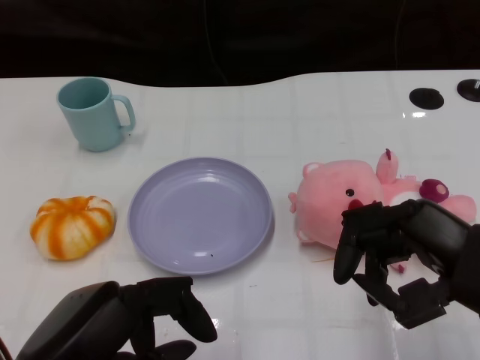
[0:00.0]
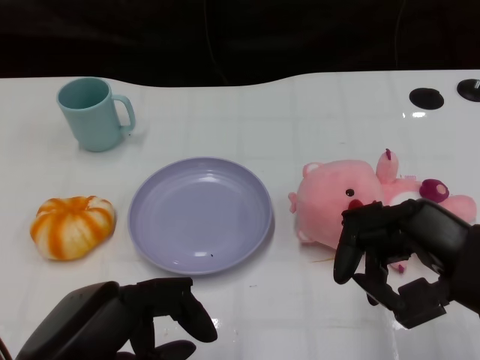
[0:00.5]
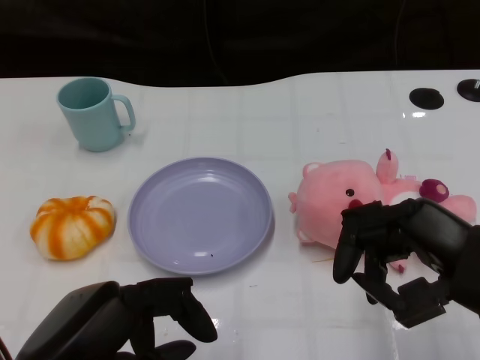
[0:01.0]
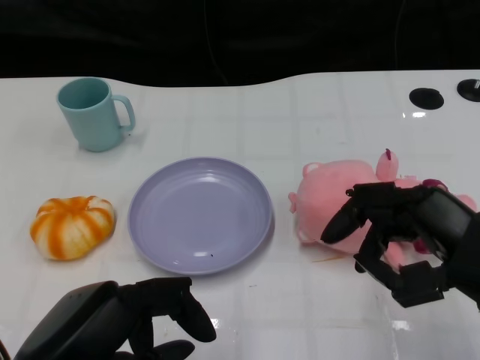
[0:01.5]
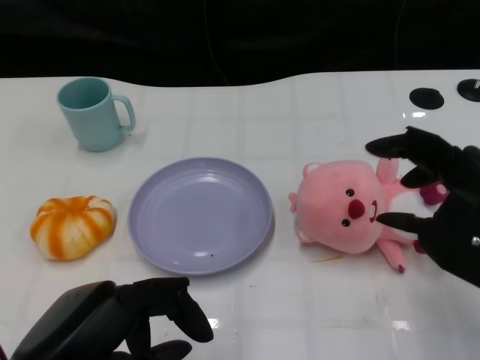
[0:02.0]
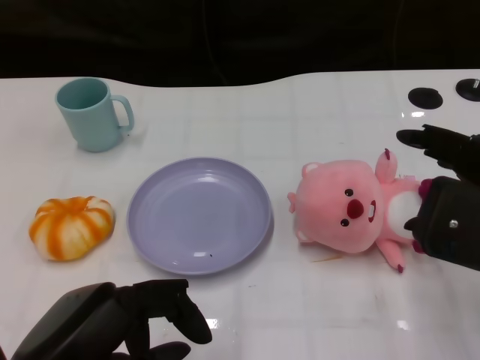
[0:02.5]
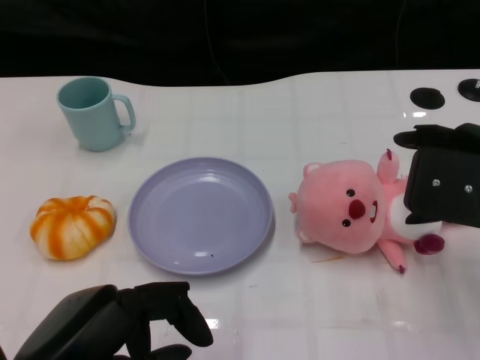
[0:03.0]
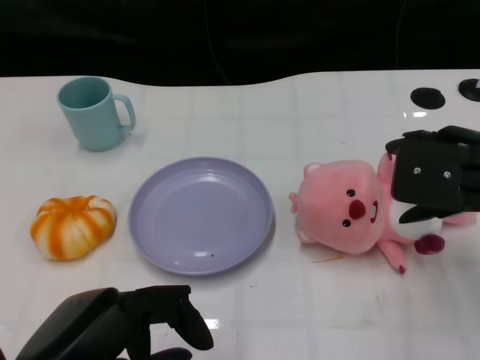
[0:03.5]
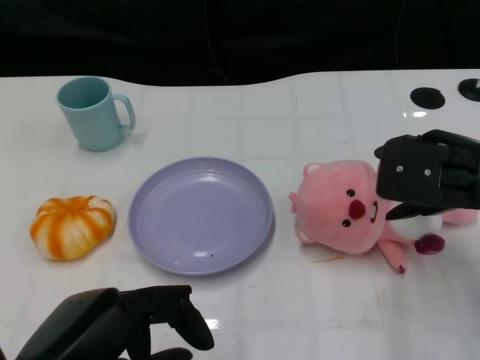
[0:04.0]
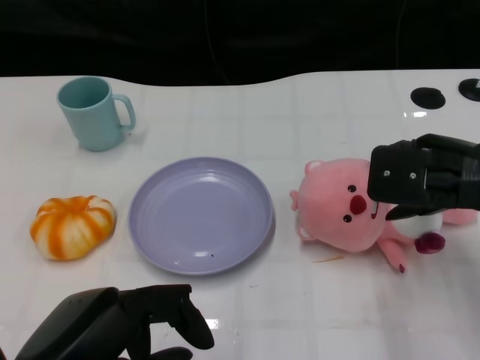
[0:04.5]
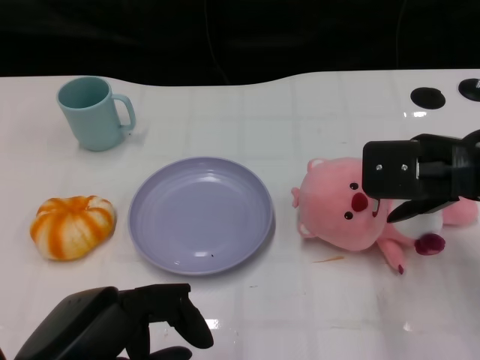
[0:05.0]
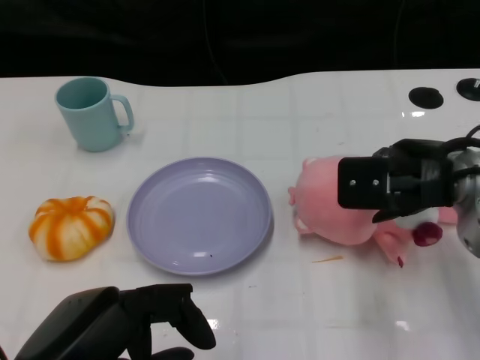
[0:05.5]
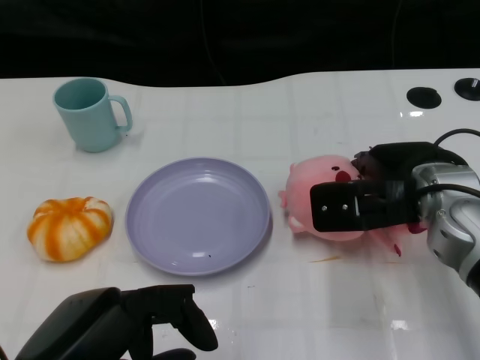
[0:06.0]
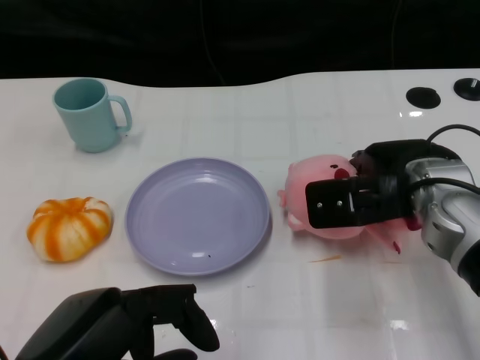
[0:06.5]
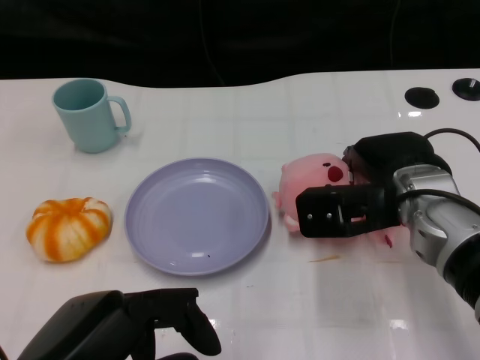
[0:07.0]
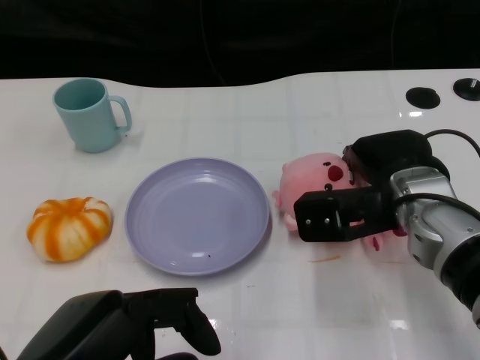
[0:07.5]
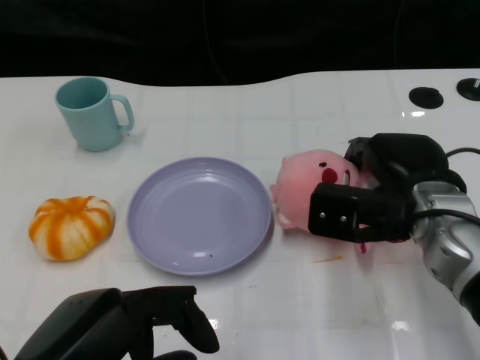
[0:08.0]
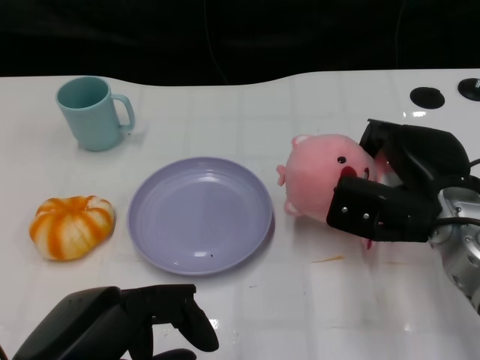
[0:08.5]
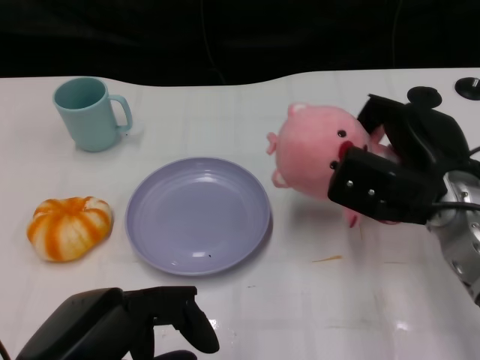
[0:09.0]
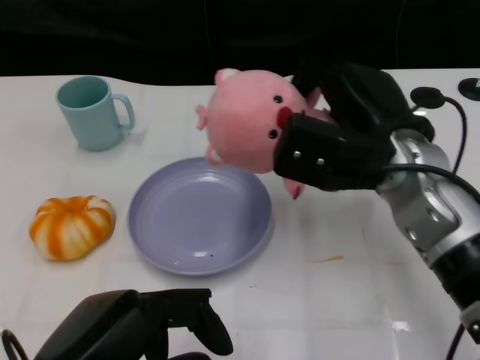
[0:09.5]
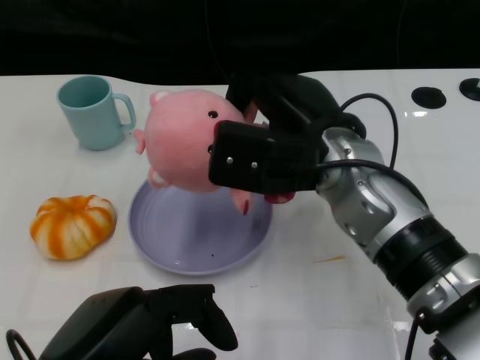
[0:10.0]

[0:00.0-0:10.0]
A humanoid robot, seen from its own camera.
Task of the whole recording: Pick up the doll on the other side of the plate and place it into the plate.
Step, 0:01.5 to 0:09.0: Grasp the pink doll with the right gripper.
0:02.0 to 0:04.0: The right hand heads forward, covering some 10 cm.
0:04.0 to 0:06.0: The right hand goes roughly 10 cm to the left and downward.
0:08.0 to 0:10.0: The right hand moves to the left and upward, roughly 10 cm.

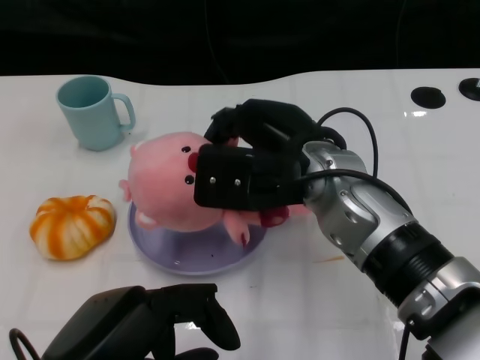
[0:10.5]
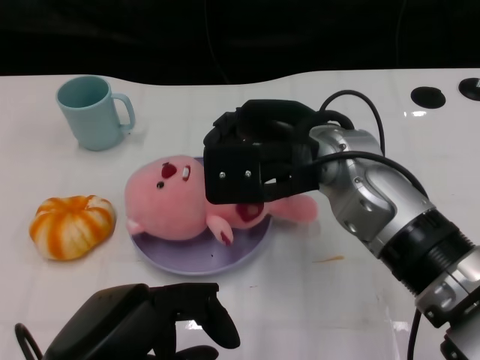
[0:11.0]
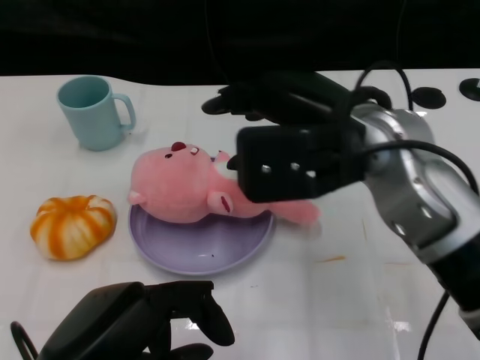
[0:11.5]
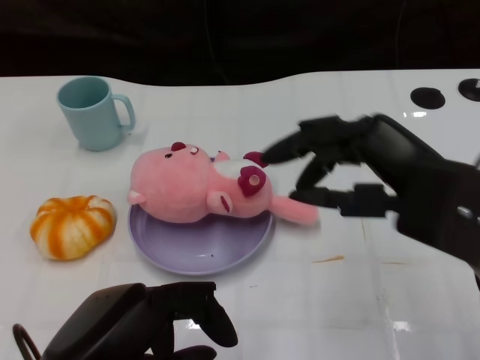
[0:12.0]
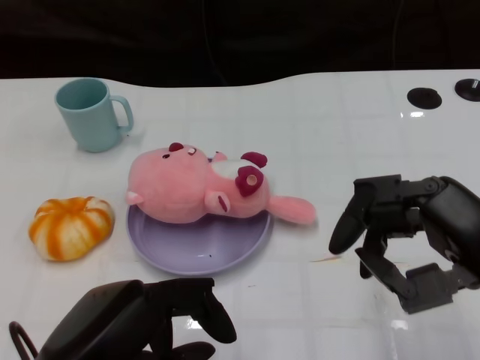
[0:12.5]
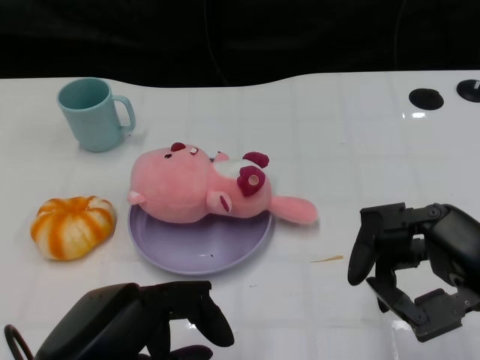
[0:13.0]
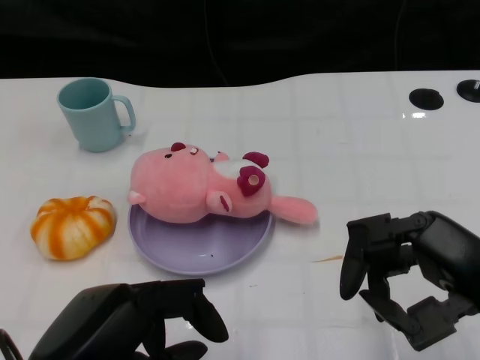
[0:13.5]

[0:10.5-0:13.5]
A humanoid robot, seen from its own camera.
Task of the whole recording: Pick up the doll on the other side of the plate and place it into the plate.
0:10.5 to 0:12.0: The right hand is displaced to the right and backward by some 15 cm.
0:12.0 to 0:13.5: The right hand shifts roughly 5 cm backward.

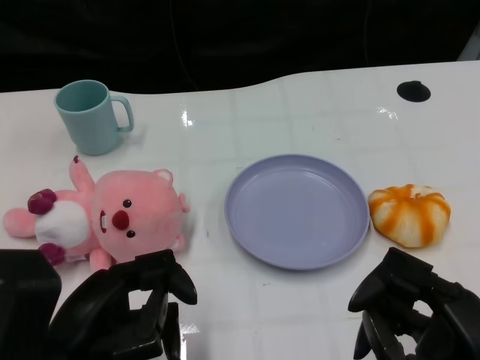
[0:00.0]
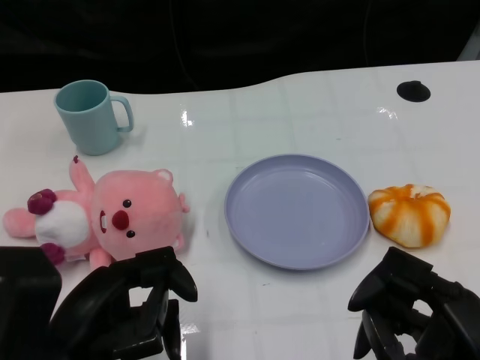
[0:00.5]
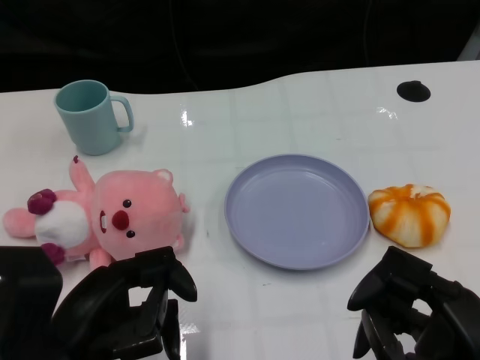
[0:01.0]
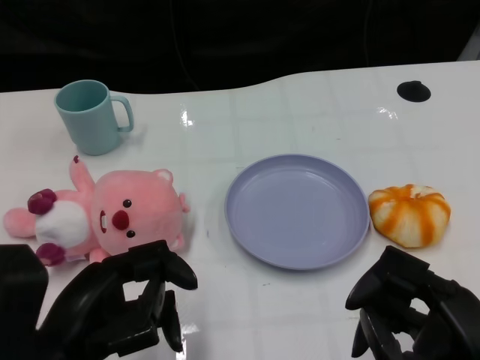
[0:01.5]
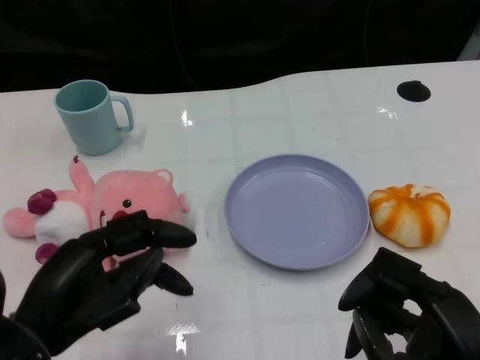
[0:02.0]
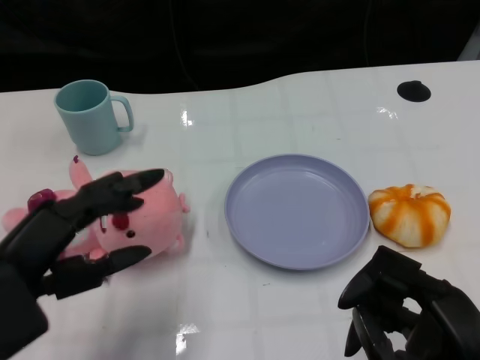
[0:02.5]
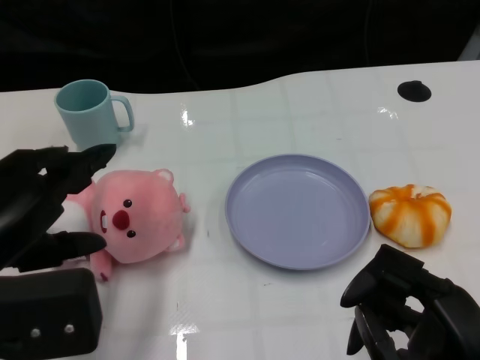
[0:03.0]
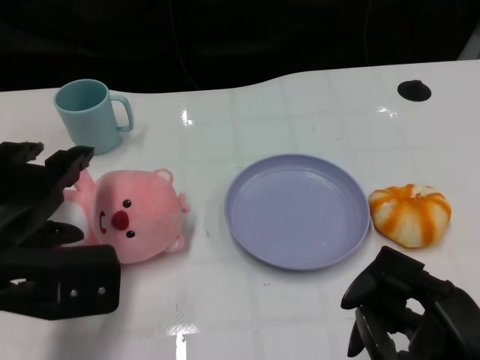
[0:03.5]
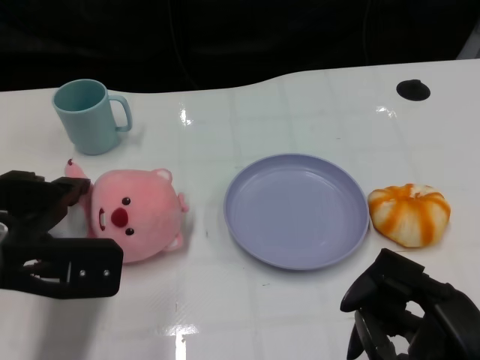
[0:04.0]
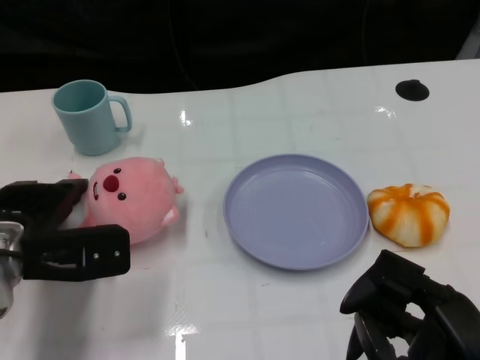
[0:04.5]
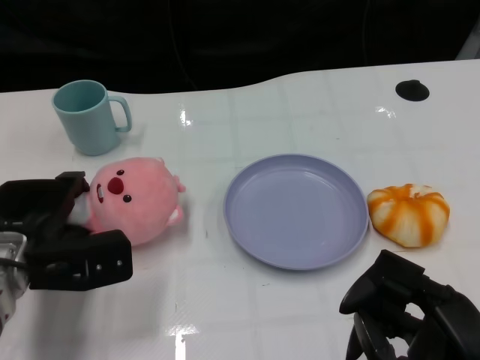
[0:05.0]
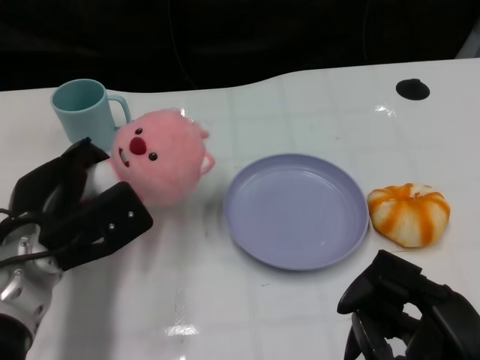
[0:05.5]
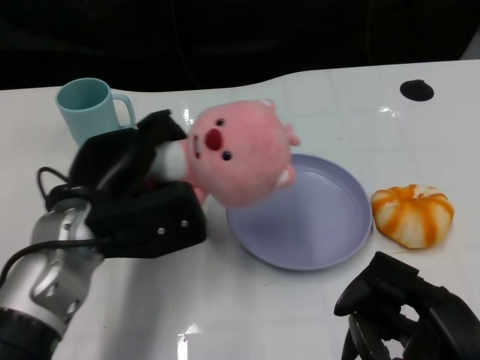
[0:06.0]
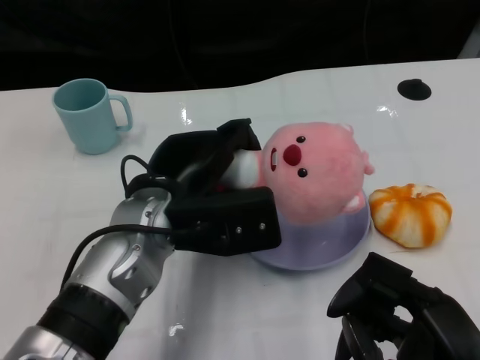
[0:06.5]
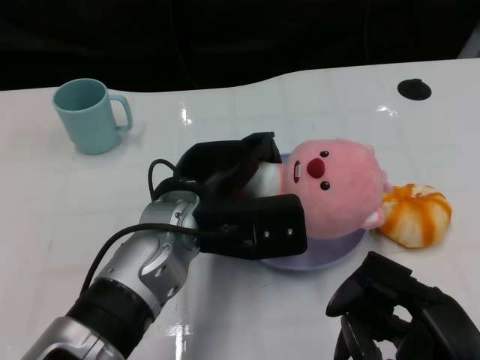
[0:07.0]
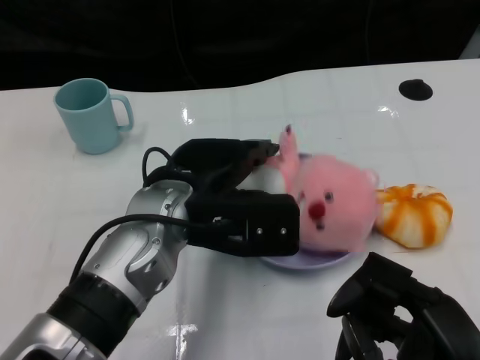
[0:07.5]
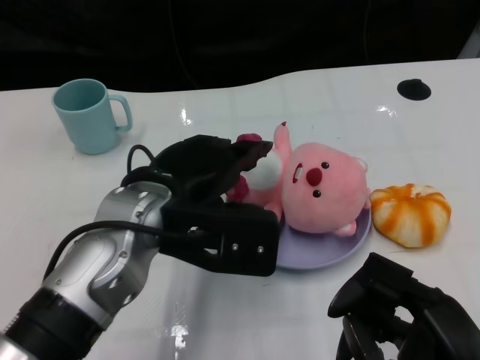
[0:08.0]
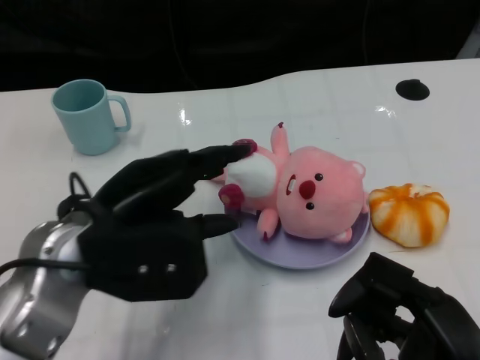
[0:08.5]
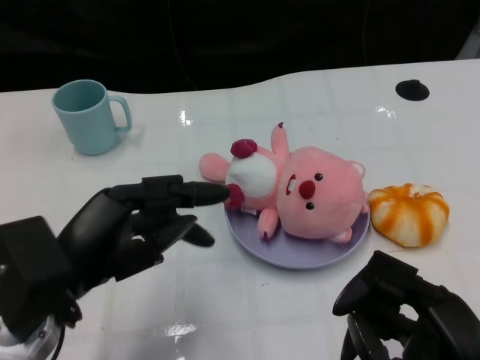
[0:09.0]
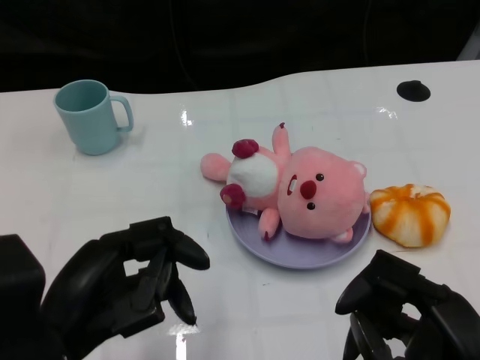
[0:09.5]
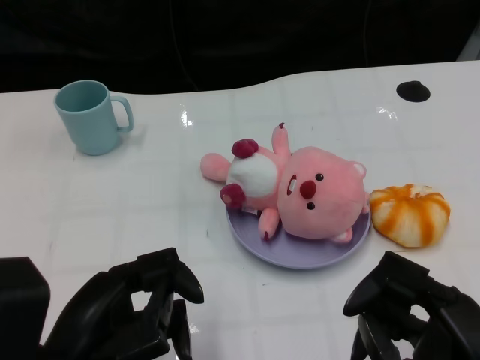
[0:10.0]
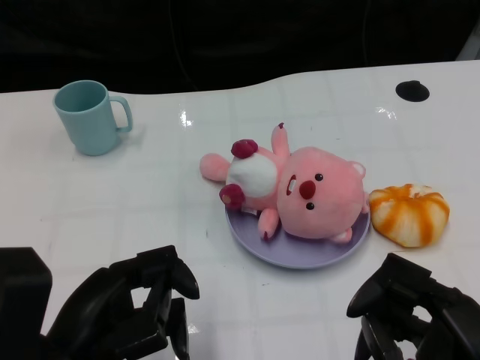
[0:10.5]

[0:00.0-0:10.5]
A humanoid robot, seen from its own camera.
Task of the whole recording: Pick up the doll on one side of the plate and place it into the plate.
Step, 0:01.5 to 0:05.0: Grasp the pink doll with the left gripper.
Step, 0:05.5 to 0:08.0: Place the pink doll into the plate with the left gripper.
0:02.0 to 0:04.0: The left hand heads forward, covering roughly 10 cm.
0:04.0 to 0:06.5: The left hand goes roughly 15 cm to the right.
0:06.5 to 0:08.5: The left hand is displaced to the left by about 5 cm.
0:08.5 to 0:10.5: The left hand heads backward and downward, covering roughly 10 cm.

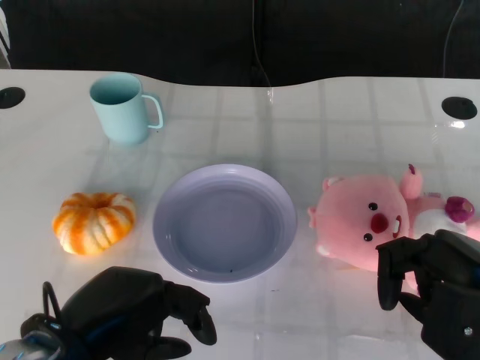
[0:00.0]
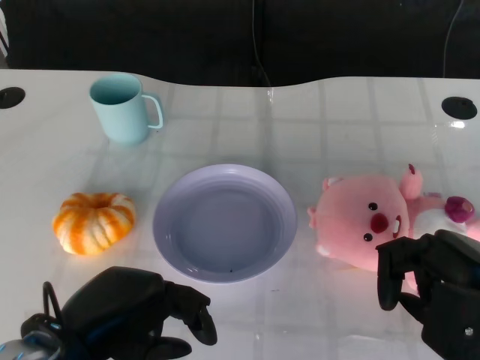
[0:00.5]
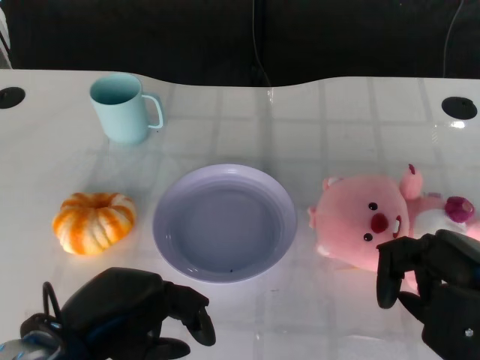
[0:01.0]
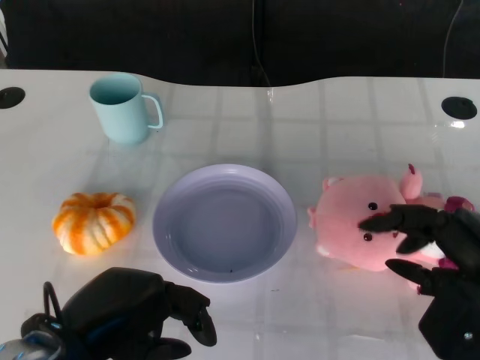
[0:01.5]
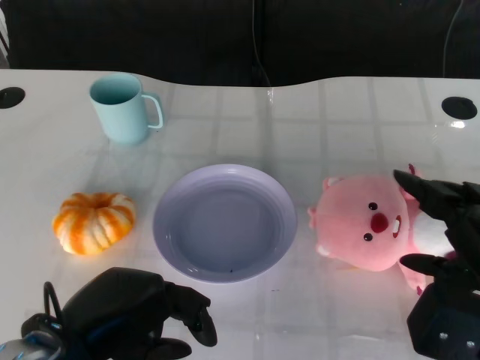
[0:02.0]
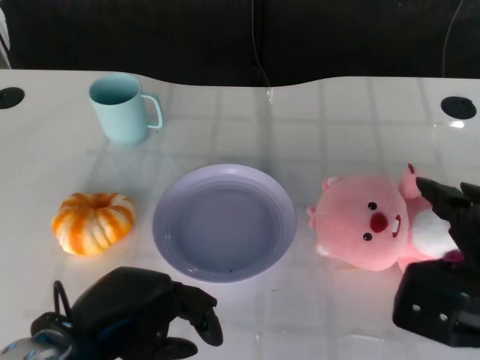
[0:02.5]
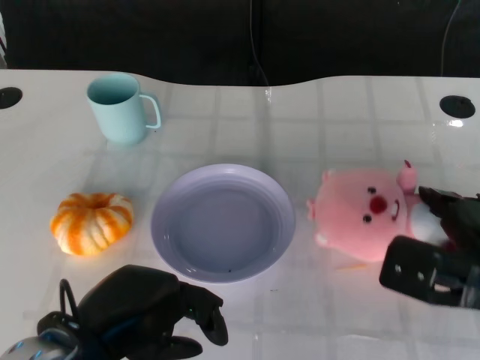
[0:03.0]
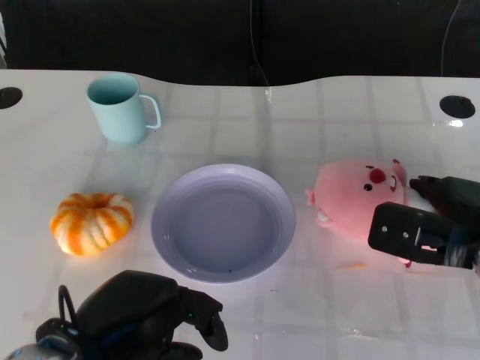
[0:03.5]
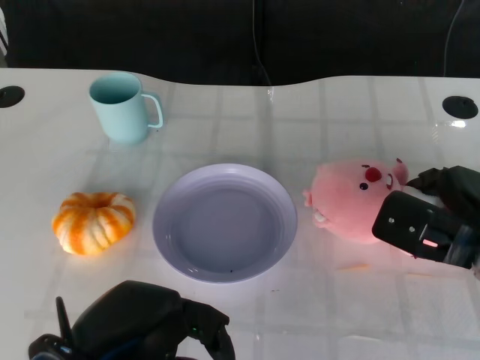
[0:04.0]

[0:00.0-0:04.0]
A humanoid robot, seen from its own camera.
Task of the whole recording: Pick up the doll on the other side of the plate and place it into the plate.
0:02.0 to 0:04.0: The right hand travels forward by approximately 10 cm.
